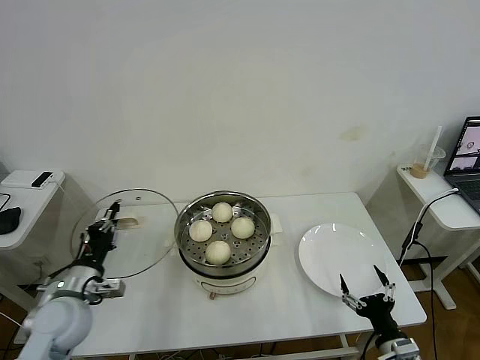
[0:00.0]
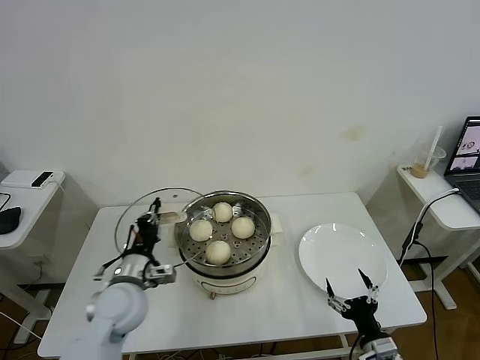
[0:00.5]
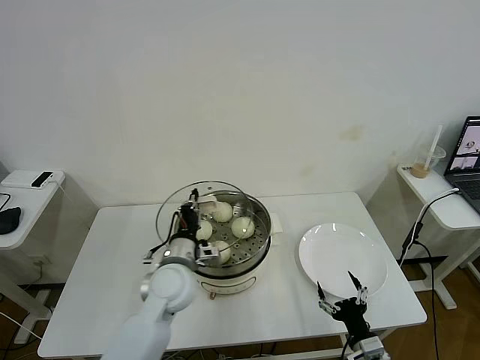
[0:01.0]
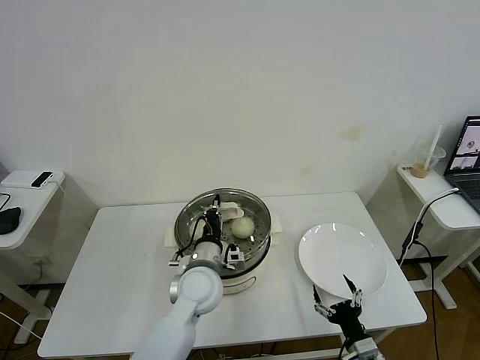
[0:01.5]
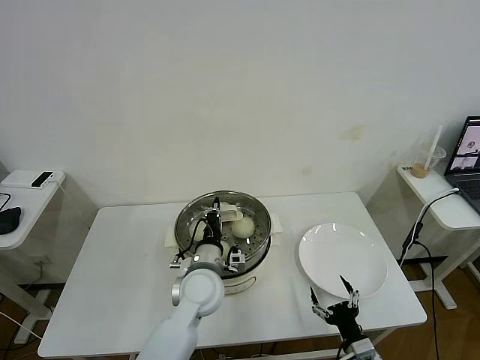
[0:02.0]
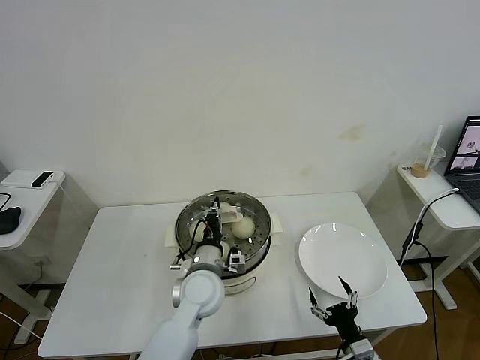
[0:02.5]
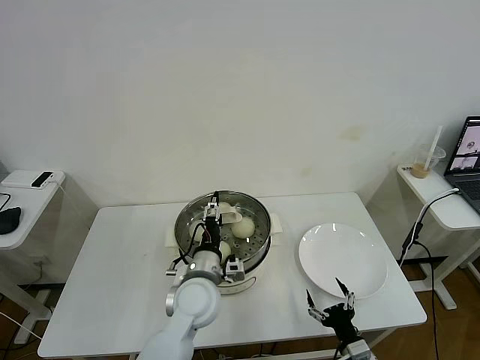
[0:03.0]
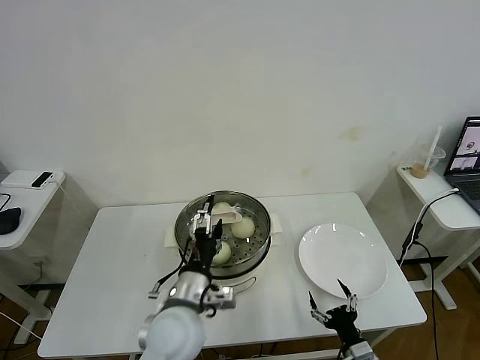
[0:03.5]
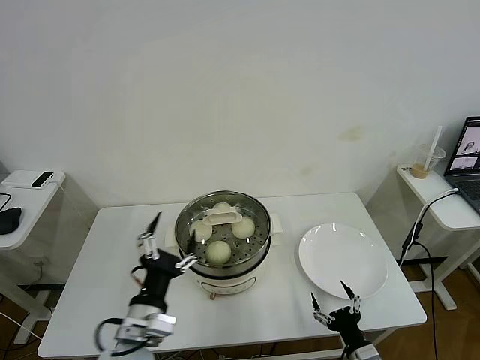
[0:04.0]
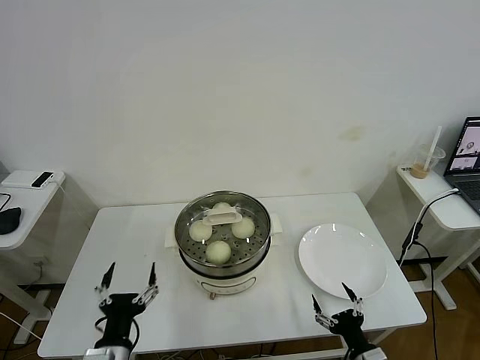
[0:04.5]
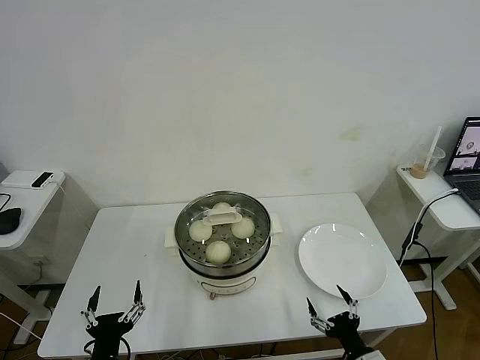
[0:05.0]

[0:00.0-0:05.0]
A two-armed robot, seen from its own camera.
Task of the whole recording: take steamed baozi put them in steamer then cover it.
Step, 0:00.0 to 0:03.0: Place the pot lid on the steamer with left gripper.
0:00.0 to 0:02.5: The left gripper heads to the right, covering roughly 25 cm. Meanwhile the right gripper goes about 5 cm to the left and downward.
0:02.5 to 0:05.0: The left gripper is displaced backward and to the left by some 30 cm, and opens up.
